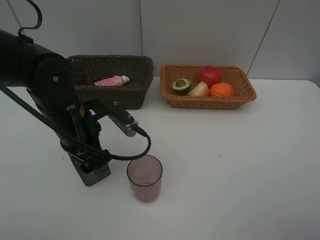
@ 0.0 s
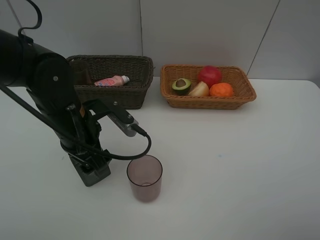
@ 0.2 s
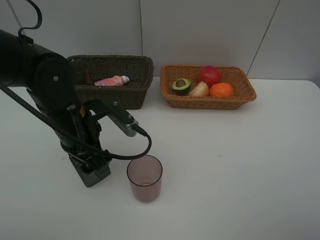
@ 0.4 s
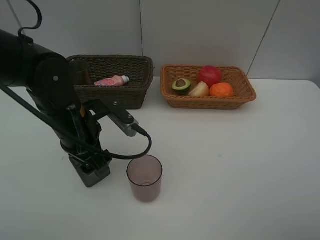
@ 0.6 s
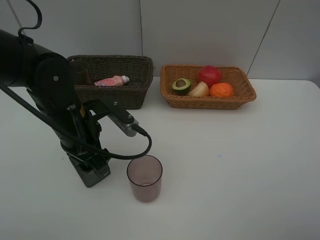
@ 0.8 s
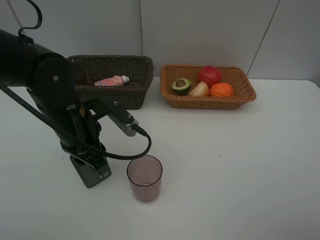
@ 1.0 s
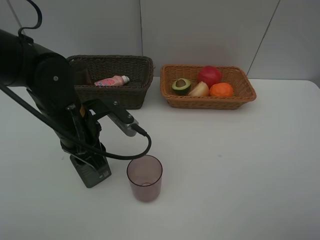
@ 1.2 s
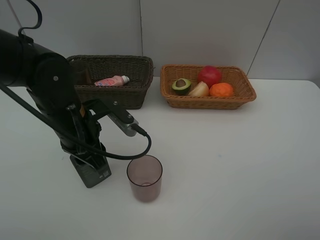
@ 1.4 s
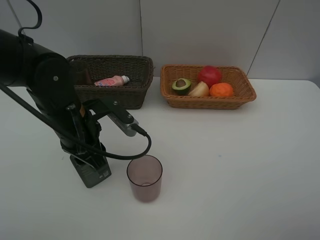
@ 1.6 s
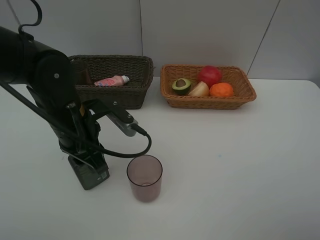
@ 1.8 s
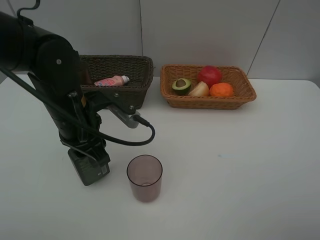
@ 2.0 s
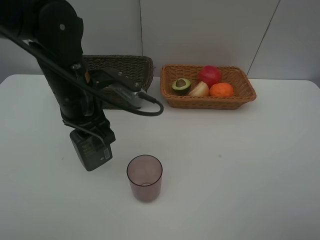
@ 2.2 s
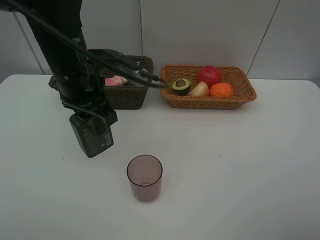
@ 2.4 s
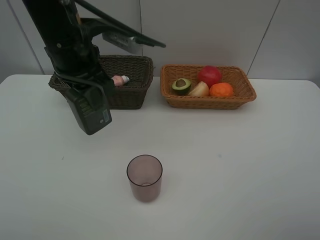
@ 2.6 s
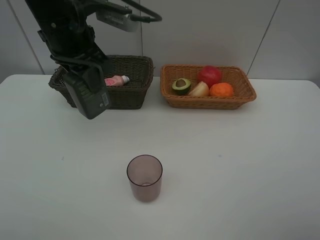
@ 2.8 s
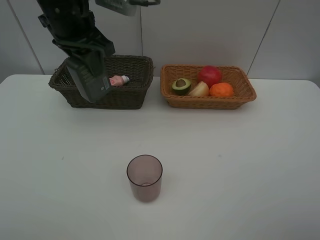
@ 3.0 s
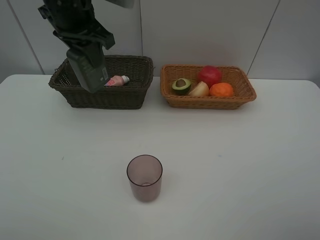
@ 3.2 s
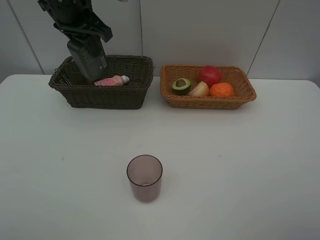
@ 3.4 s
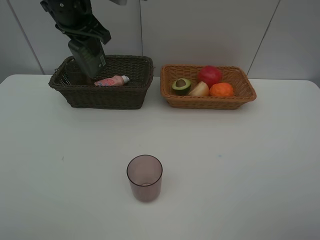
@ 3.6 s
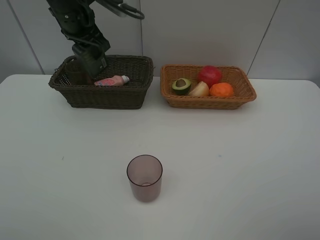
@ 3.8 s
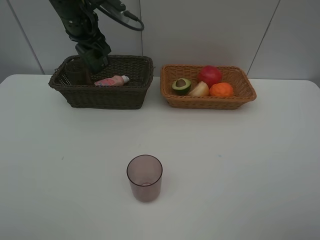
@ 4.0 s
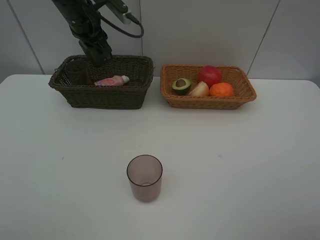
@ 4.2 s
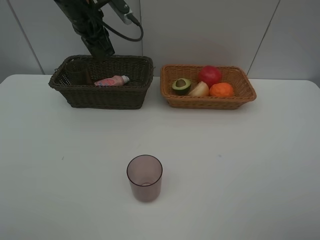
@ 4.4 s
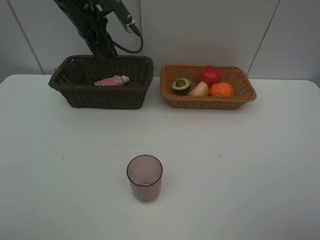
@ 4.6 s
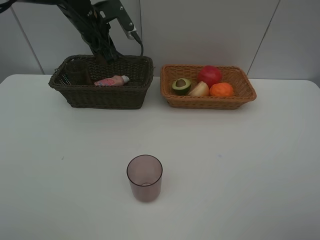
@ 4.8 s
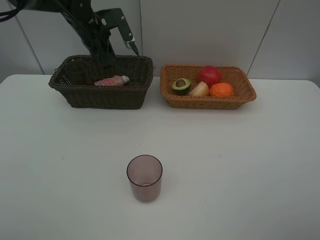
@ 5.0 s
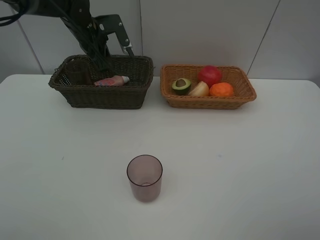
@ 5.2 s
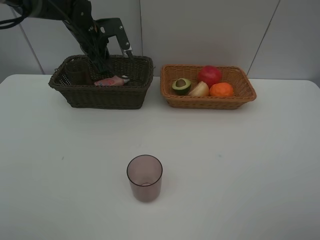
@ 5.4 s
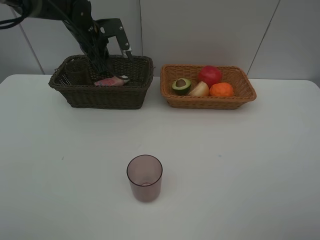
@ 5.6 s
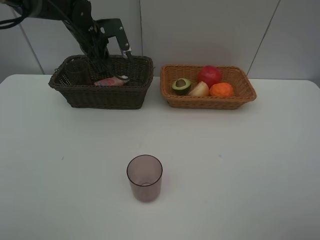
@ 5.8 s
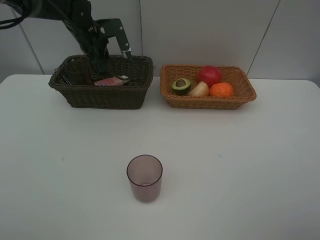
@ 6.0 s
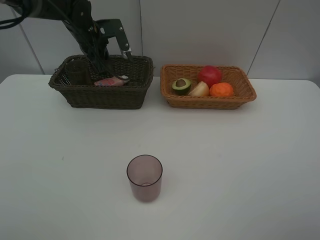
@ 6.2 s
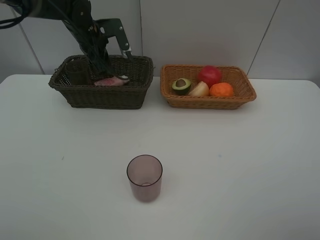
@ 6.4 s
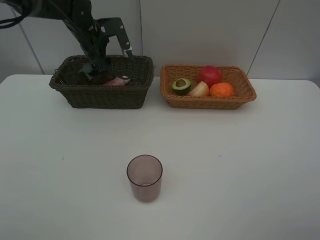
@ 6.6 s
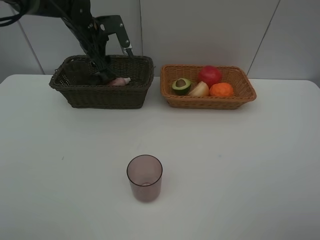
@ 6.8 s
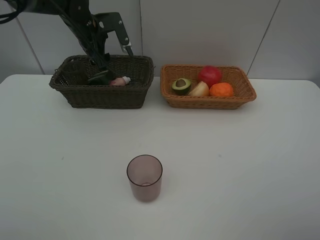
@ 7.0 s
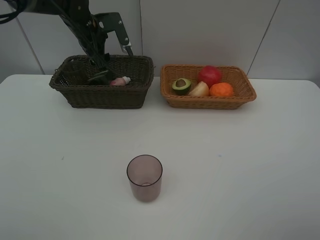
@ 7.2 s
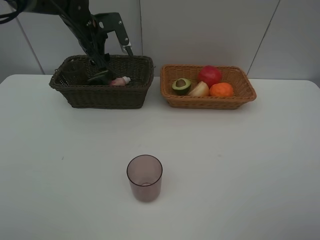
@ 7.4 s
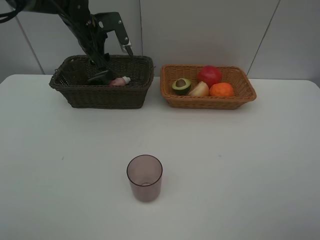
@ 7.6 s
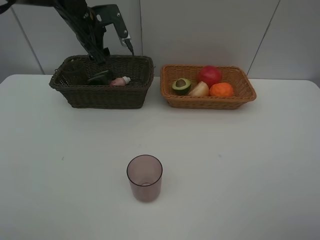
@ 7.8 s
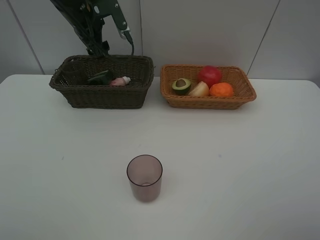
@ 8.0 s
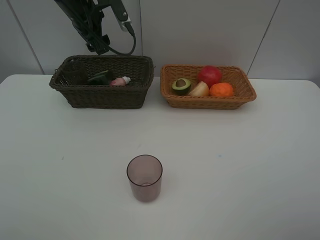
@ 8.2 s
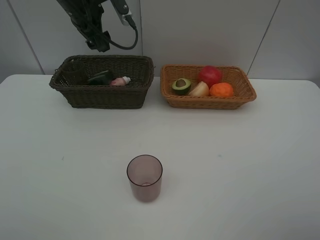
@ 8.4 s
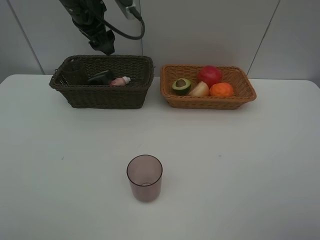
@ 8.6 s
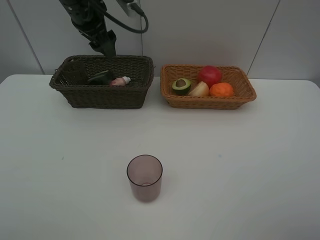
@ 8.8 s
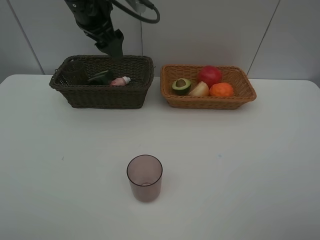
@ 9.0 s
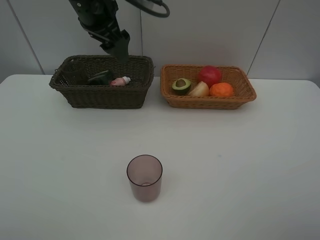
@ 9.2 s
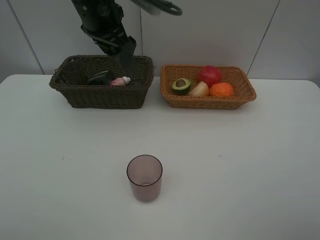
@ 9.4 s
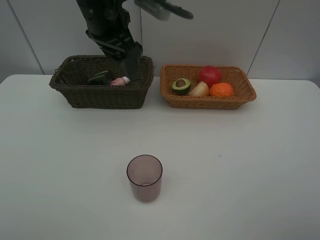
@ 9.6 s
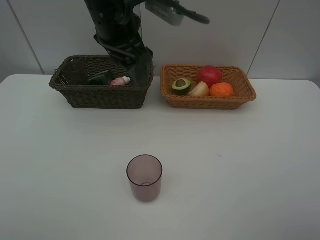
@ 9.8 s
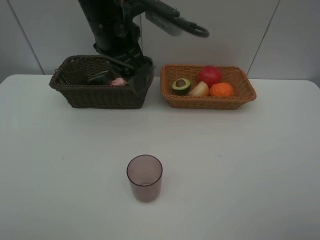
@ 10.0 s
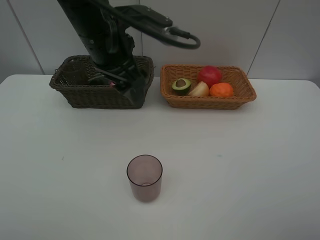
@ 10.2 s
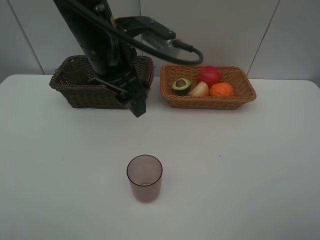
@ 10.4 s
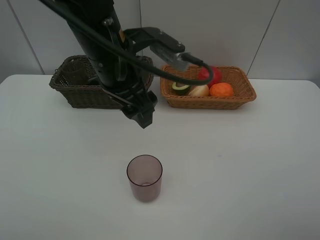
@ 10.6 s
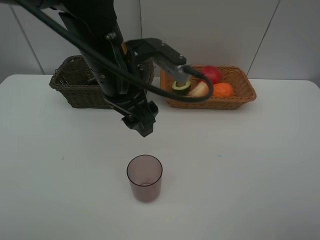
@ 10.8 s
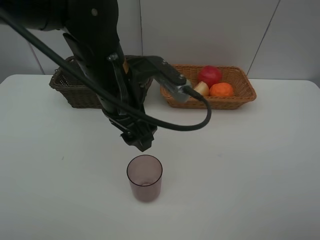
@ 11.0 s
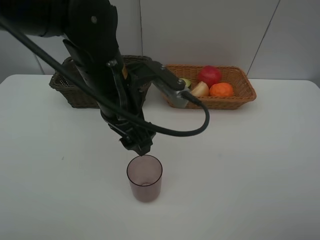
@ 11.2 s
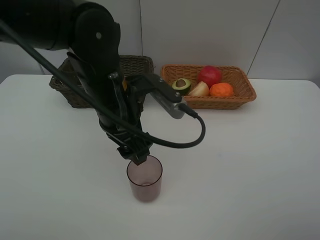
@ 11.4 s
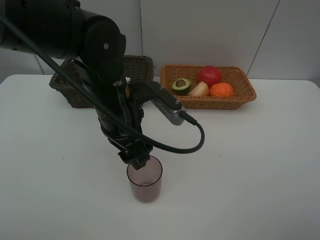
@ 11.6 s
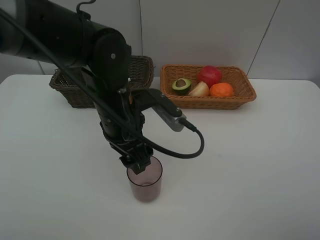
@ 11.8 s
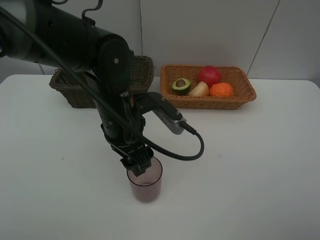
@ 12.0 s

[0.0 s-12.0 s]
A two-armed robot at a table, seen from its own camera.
Task of the whole recording: Place multiple objects separately in different baskets.
Step, 0.0 to 2.4 s: Pick up the hard facial cleanser with left gripper.
Step, 2.6 to 8.2 s: Place the hard facial cleanser in the dark basket with left gripper.
0.0 to 1.6 s: The left gripper closes up.
1.6 to 3.0 s: The left gripper shifts about 20 cm upward and forward.
3.0 to 4.4 s: The left gripper moves forward, about 10 cm.
4.4 to 6.0 s: The left gripper goes about 5 cm downward.
6.0 to 7.6 s: The left gripper opens.
7.6 to 9.0 s: The left gripper goes approximately 15 cm upward and backward.
9.0 to 10.4 s: The left gripper goes some 10 cm backward and to the right.
10.4 to 12.0 s: The left gripper is displaced downward by some 10 cm.

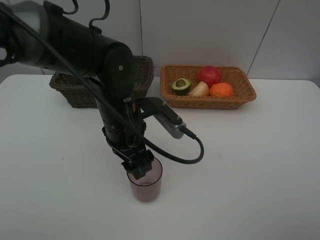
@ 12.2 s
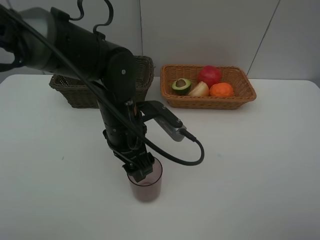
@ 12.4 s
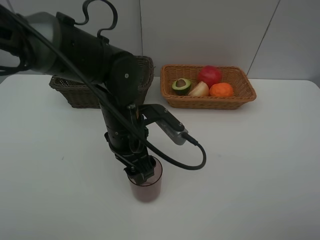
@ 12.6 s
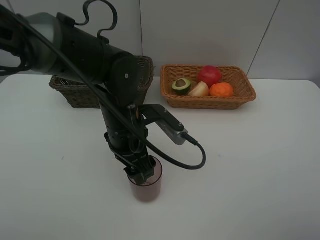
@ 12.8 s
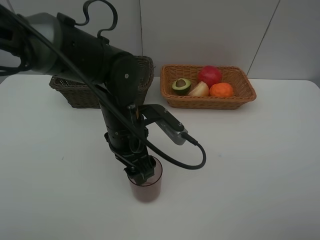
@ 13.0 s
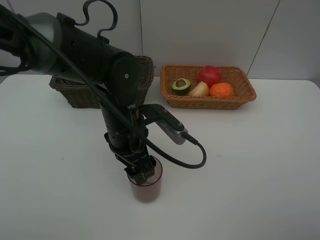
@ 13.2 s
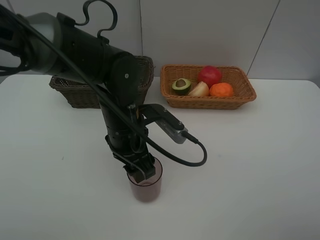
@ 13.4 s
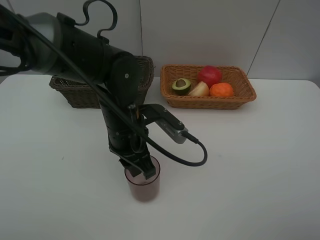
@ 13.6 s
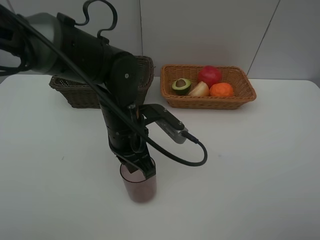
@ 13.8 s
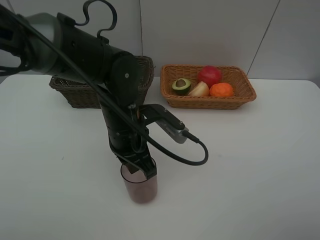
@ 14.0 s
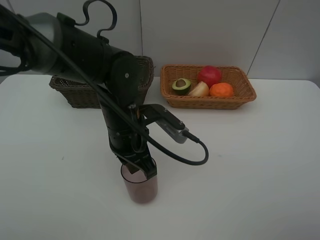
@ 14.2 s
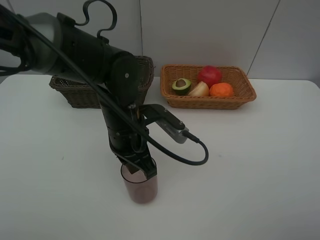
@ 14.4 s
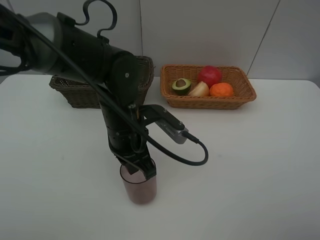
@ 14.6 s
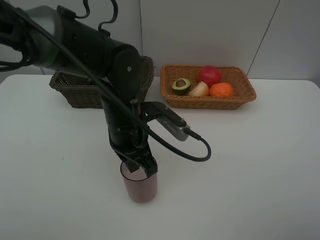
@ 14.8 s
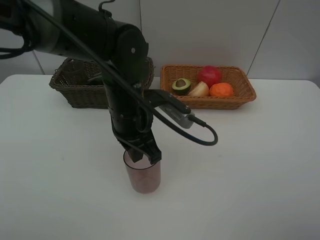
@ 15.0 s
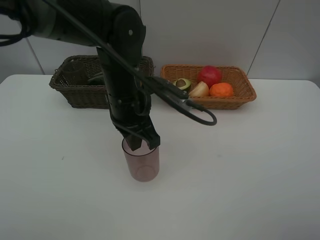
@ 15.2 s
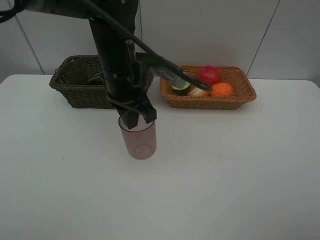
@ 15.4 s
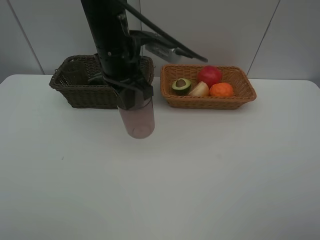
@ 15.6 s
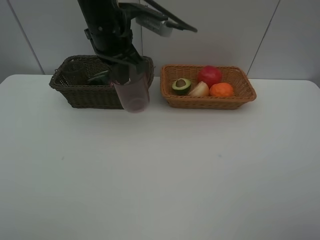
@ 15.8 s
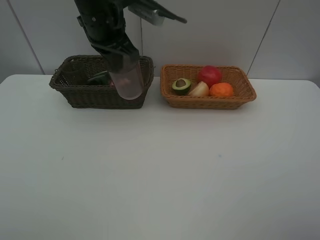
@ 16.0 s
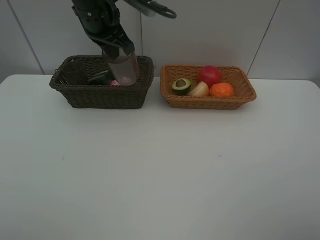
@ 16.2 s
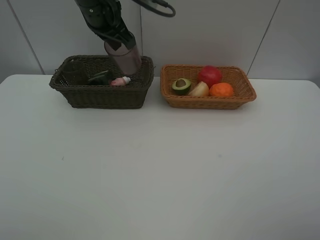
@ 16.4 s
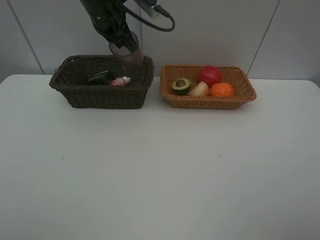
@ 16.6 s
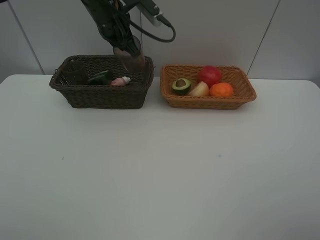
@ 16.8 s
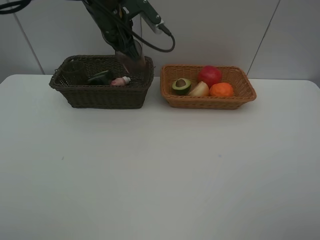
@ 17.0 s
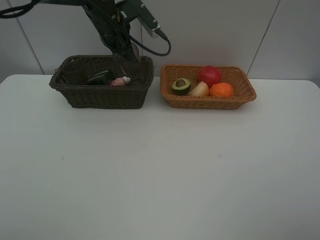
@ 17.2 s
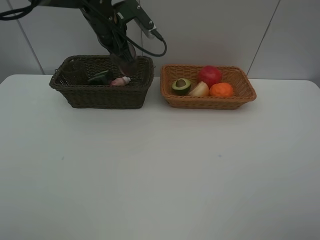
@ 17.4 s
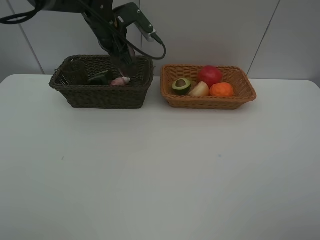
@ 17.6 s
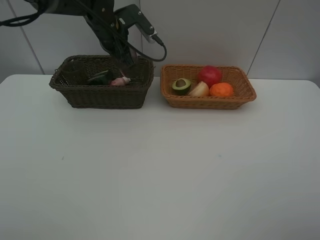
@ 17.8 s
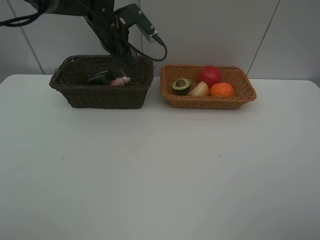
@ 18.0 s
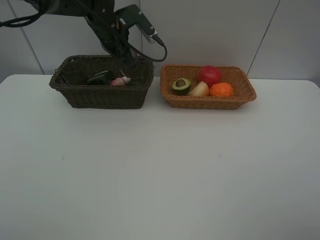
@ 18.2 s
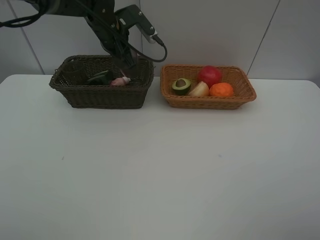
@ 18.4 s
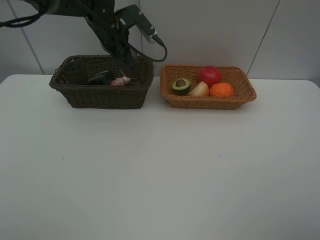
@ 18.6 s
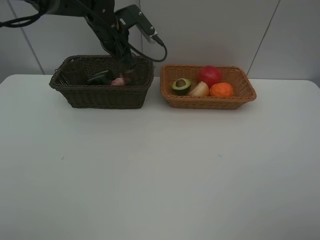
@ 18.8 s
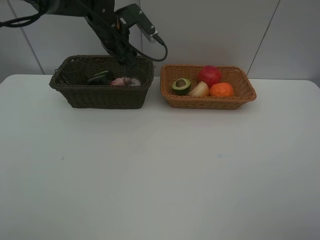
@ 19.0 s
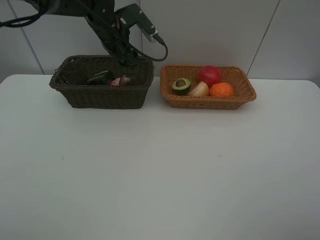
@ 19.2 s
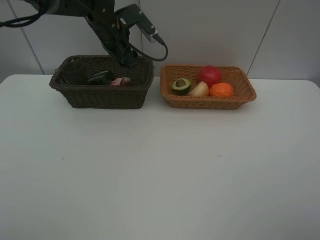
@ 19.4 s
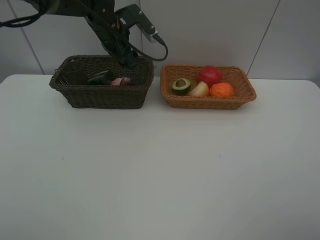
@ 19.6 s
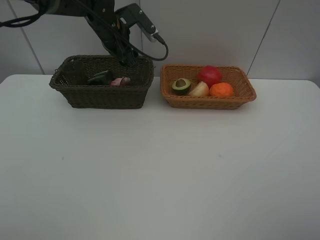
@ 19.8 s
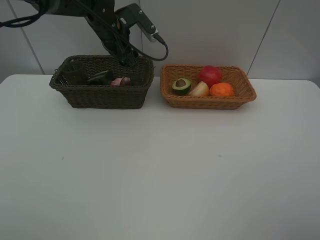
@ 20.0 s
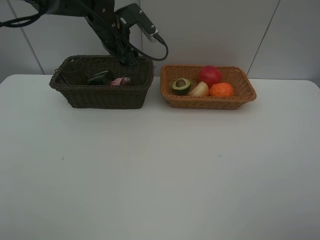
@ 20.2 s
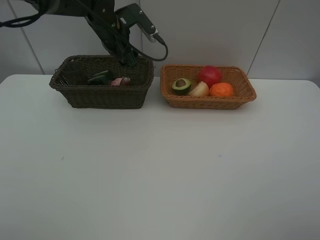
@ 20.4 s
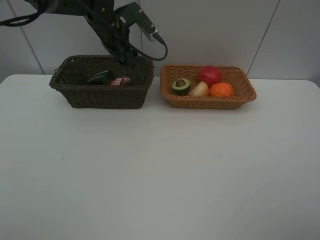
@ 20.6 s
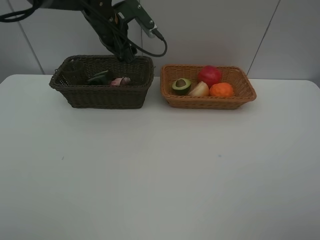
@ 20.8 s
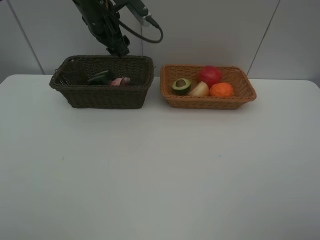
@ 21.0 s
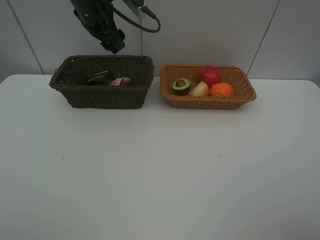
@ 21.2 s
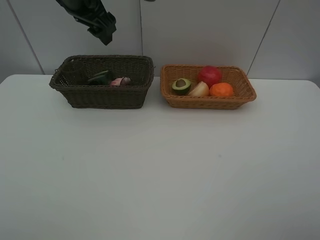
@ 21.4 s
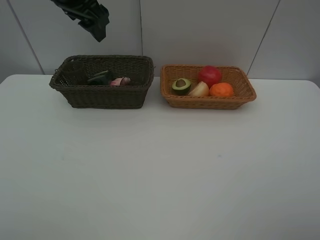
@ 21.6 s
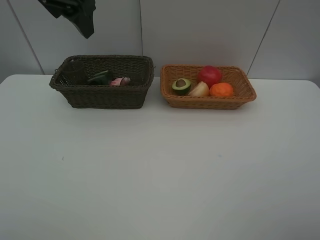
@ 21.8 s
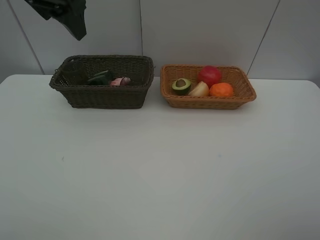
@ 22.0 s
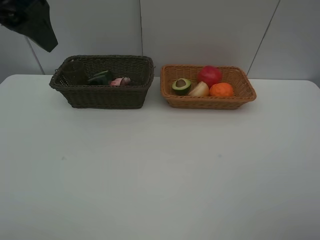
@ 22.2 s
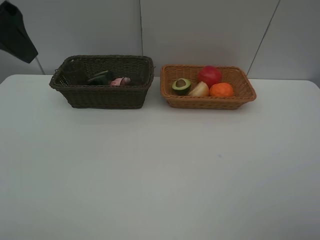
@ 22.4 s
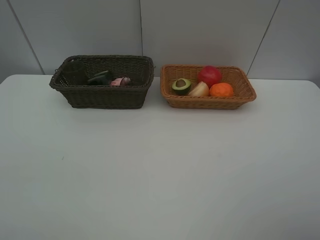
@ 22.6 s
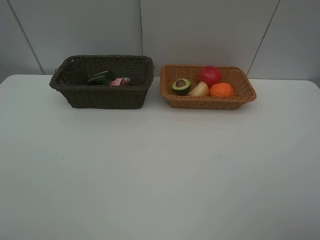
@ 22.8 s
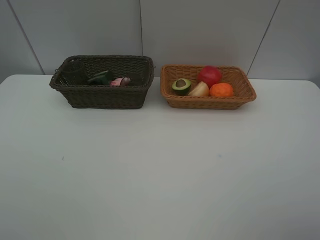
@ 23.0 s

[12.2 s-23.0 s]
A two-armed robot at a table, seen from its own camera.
Task of the whole recording: Place multiple objects separately in different baskets.
Step, 12.2 to 15.0 s: Pick up the red cup with left gripper.
Step, 15.2 to 19.8 s: Place the red cup in the dark basket with left gripper.
12.2 to 13.8 s: The left gripper closes its fingers.
13.8 to 15.2 s: The left gripper changes place by some 5 cm.
15.2 to 16.8 s: The left gripper is displaced forward and upward by some 15 cm.
16.8 to 18.4 s: The left gripper shifts by some 5 cm.
20.0 to 21.4 s: The left gripper is displaced upward and backward by roughly 15 cm.
21.4 to 23.0 s: The left gripper goes some 30 cm backward and to the left.
